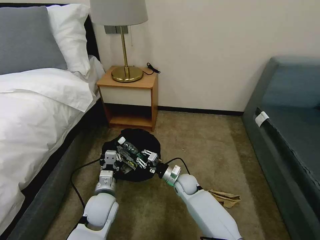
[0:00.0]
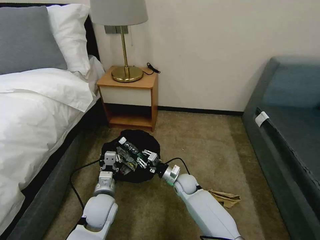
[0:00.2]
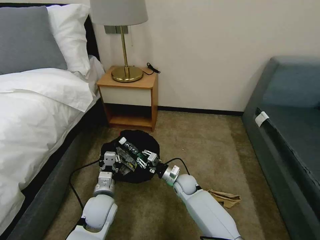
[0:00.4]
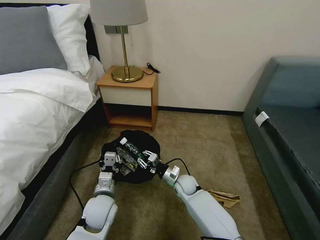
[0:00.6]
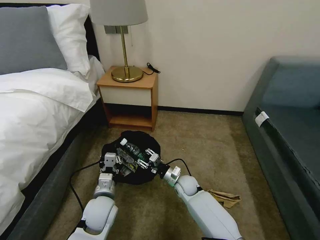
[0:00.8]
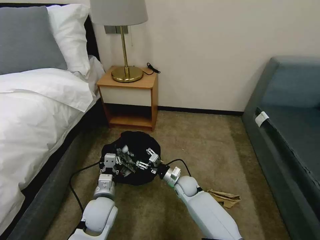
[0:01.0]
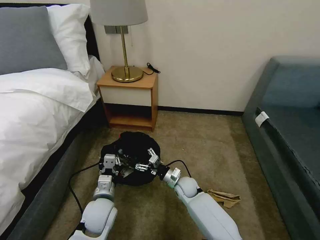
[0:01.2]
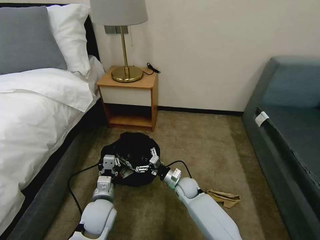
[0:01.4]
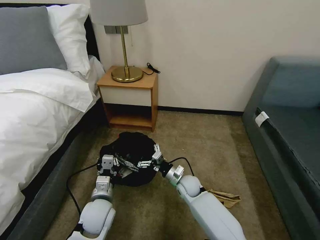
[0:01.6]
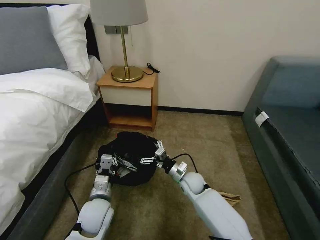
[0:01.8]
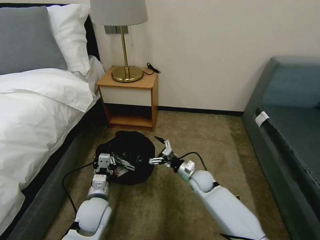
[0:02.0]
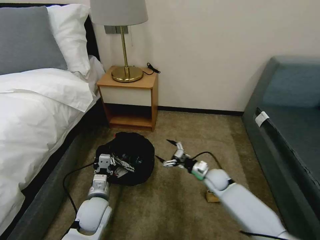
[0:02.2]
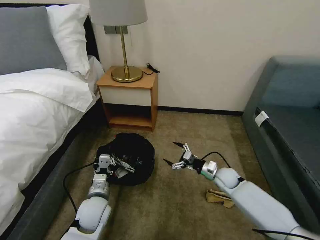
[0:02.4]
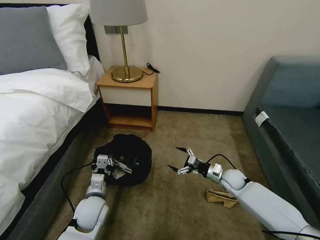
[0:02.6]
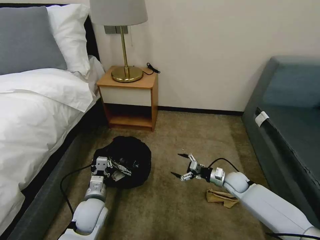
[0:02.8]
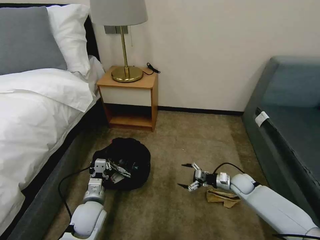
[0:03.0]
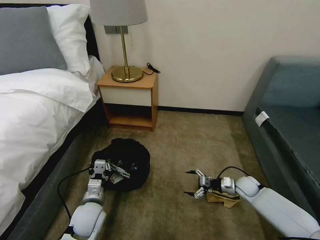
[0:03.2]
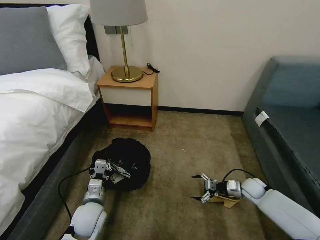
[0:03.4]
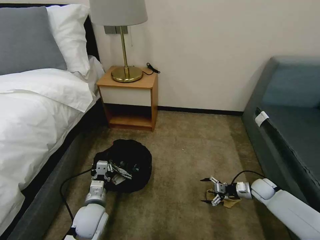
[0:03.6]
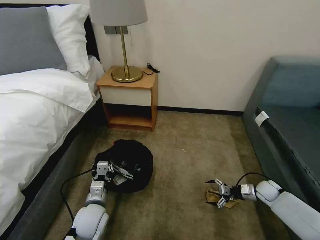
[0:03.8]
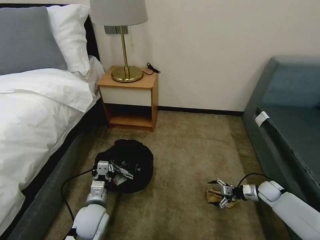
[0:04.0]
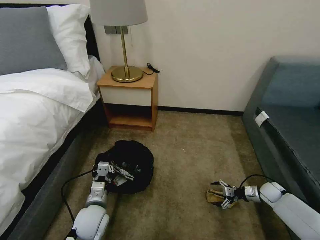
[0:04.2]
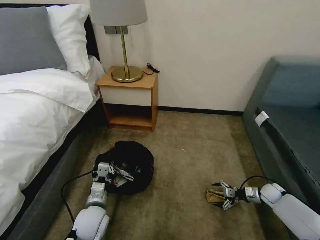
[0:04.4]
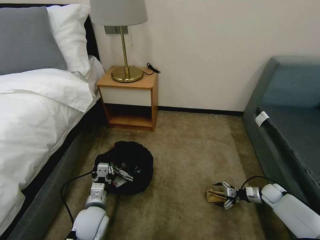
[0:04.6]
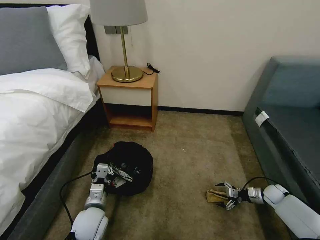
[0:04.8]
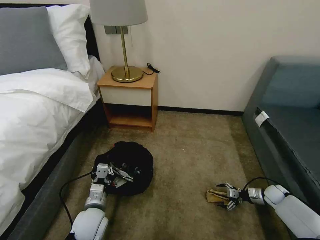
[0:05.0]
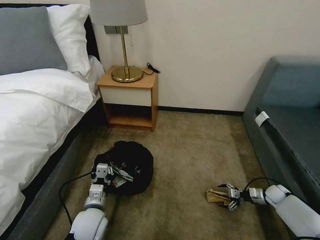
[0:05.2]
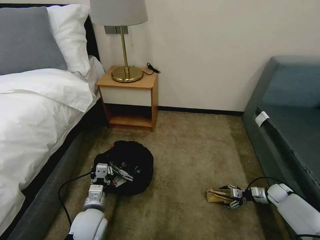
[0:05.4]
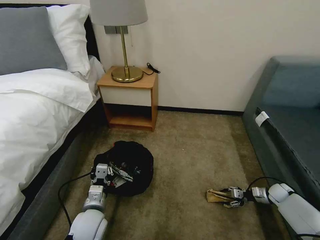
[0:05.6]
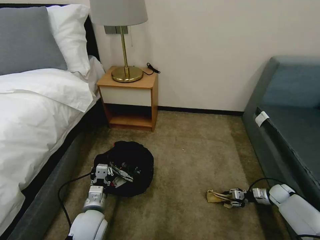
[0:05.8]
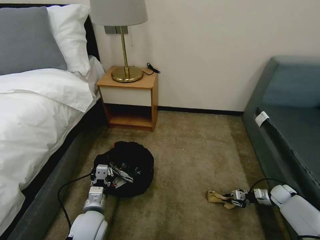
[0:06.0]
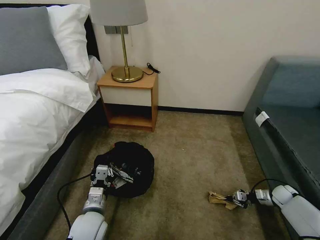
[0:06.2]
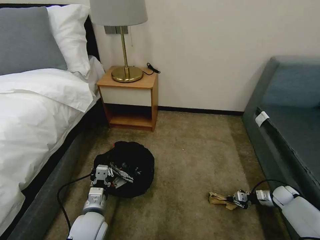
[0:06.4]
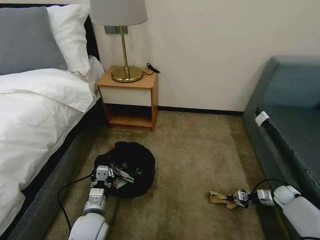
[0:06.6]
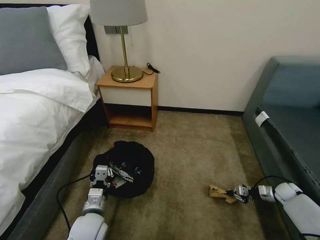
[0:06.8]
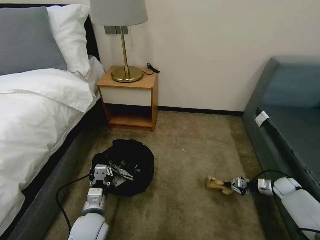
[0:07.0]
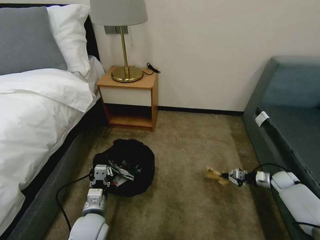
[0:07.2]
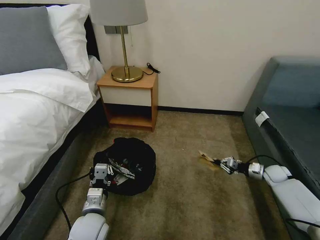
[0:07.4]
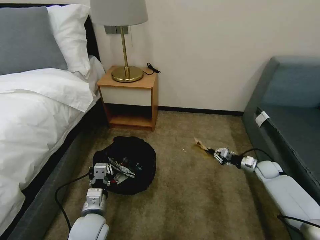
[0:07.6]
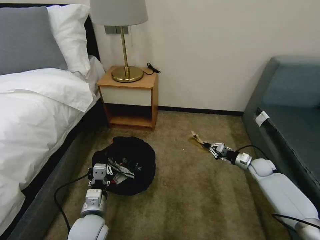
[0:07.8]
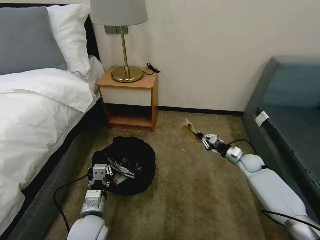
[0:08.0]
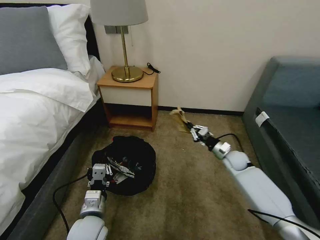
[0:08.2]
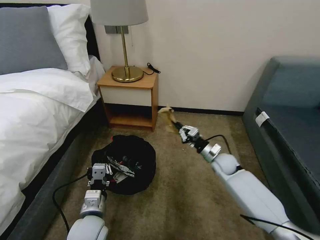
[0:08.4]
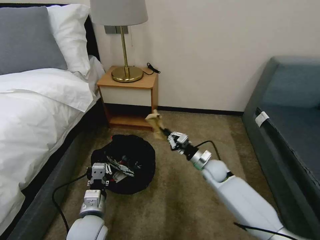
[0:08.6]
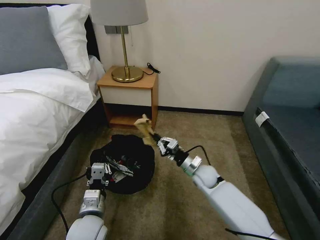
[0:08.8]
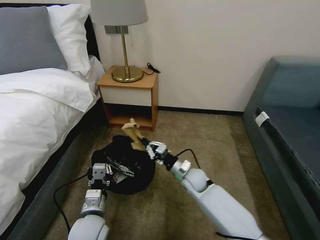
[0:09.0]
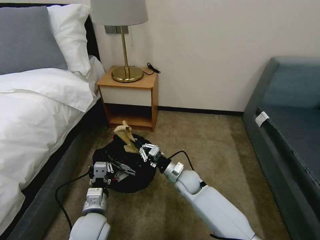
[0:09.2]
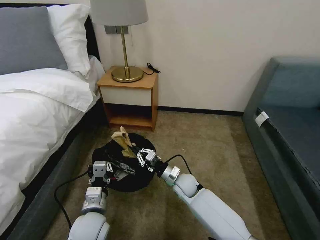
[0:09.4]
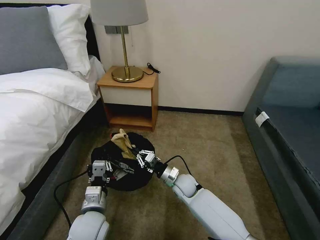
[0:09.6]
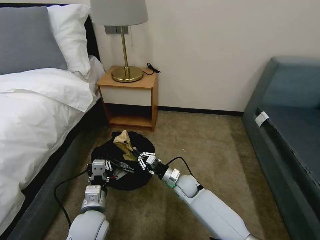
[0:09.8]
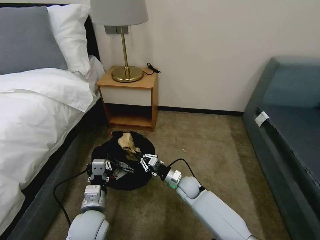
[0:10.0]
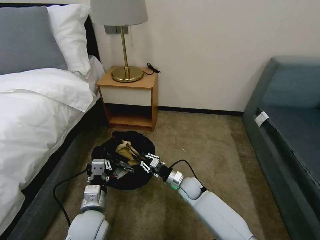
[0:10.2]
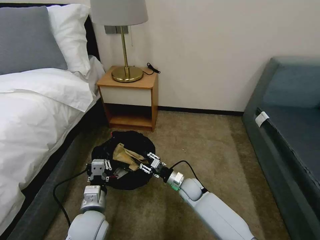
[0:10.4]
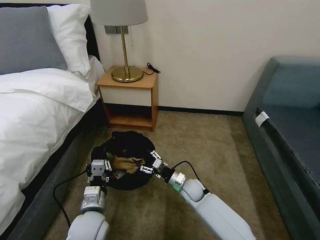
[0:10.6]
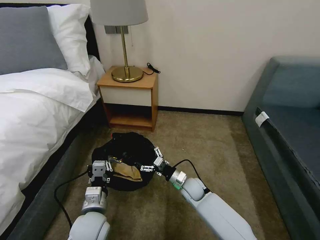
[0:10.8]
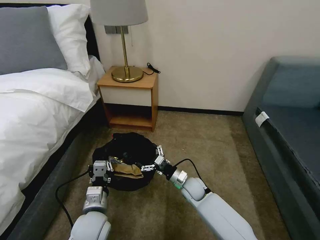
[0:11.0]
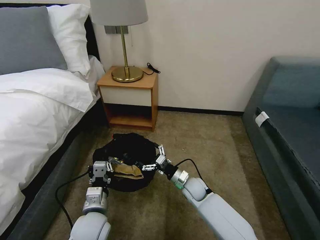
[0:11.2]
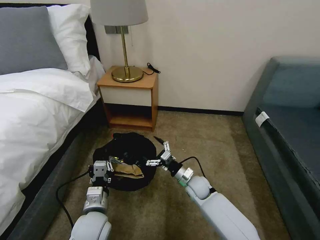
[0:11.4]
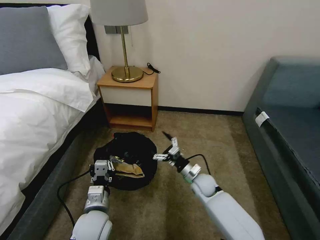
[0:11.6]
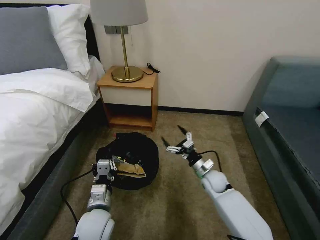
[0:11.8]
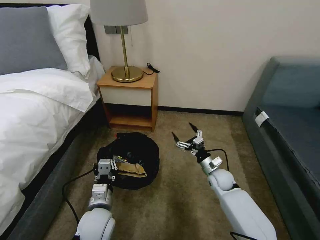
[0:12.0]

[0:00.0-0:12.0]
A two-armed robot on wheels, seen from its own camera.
Task of the whole recording: Pick up the trash bin, then pick up the garbage on the floor and place it into the trash bin.
0:00.0 to 0:01.6: The right gripper opens up.
0:01.6 to 0:03.0: The right gripper is displaced to the right by roughly 25 cm.
0:03.0 to 0:04.4: The right gripper moves to the right, some 15 cm.
0:04.4 to 0:06.0: The right gripper closes its fingers.
0:06.0 to 0:07.6: The right gripper is displaced forward, upward and to the left by some 15 cm.
0:07.6 to 0:09.0: The right gripper heads to the left, covering approximately 35 cm.
0:09.0 to 0:10.4: The right gripper heads downward, covering approximately 5 cm, and opens.
0:10.4 to 0:12.0: The right gripper moves to the right, approximately 10 cm, and opens up.

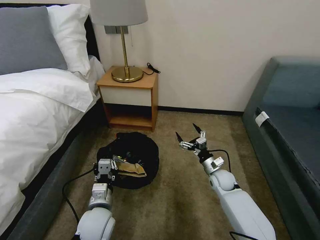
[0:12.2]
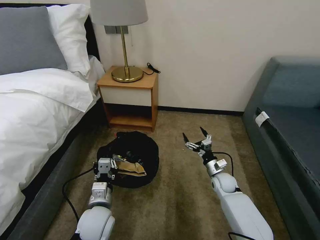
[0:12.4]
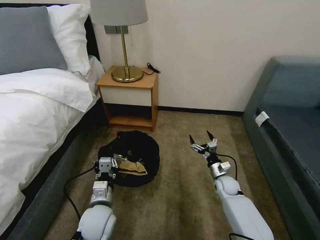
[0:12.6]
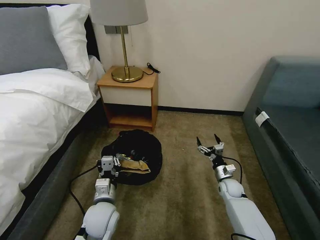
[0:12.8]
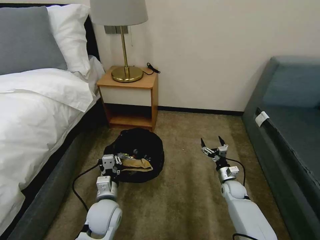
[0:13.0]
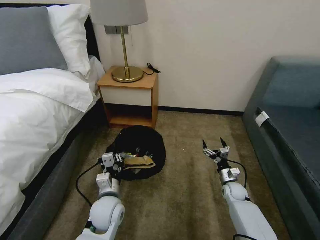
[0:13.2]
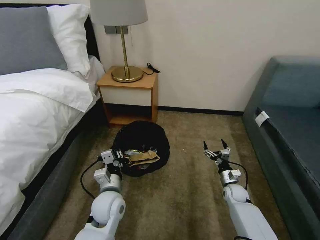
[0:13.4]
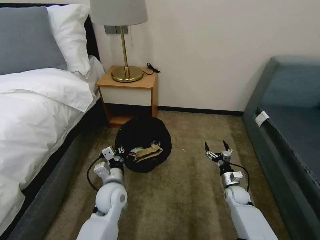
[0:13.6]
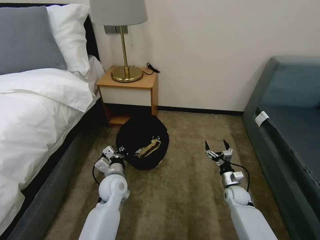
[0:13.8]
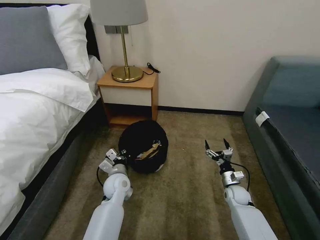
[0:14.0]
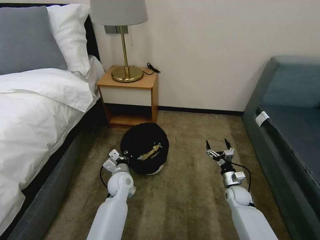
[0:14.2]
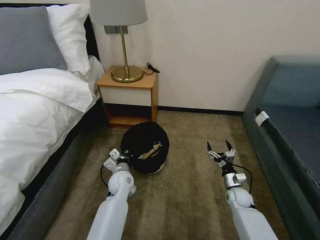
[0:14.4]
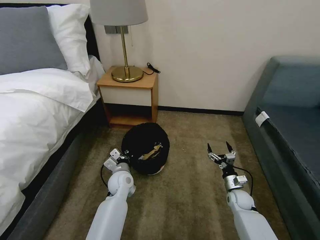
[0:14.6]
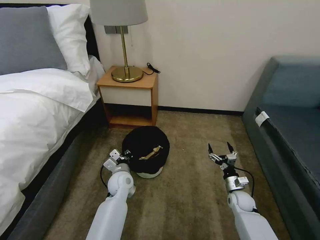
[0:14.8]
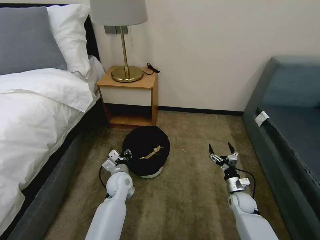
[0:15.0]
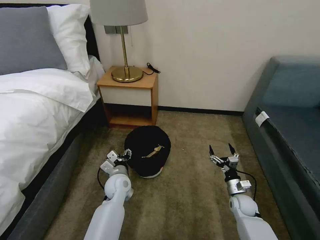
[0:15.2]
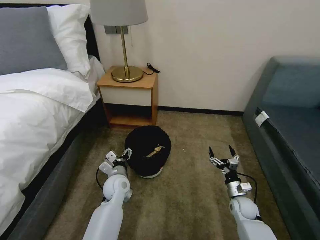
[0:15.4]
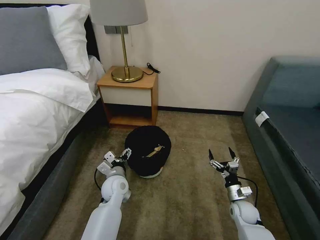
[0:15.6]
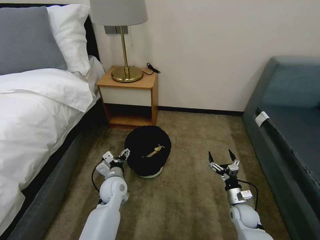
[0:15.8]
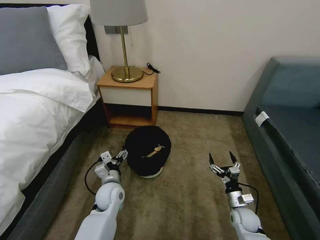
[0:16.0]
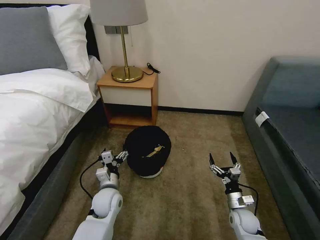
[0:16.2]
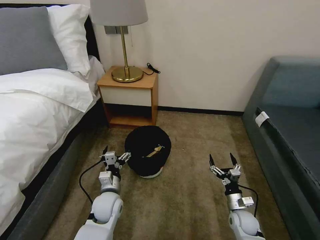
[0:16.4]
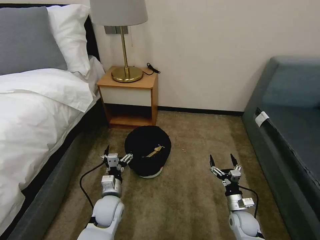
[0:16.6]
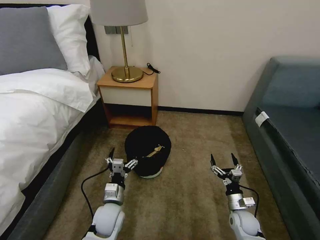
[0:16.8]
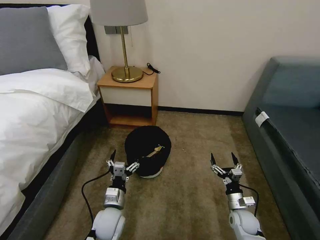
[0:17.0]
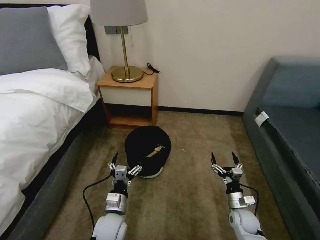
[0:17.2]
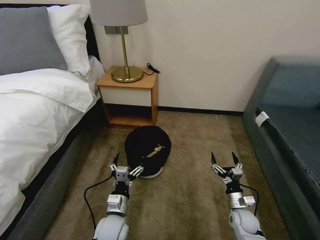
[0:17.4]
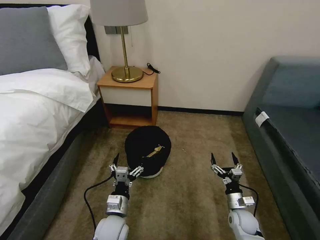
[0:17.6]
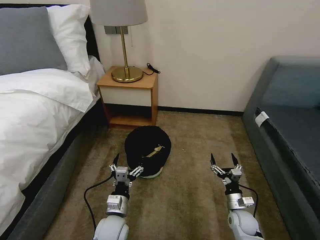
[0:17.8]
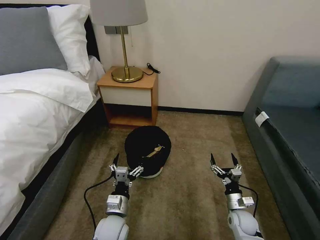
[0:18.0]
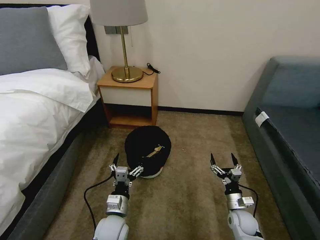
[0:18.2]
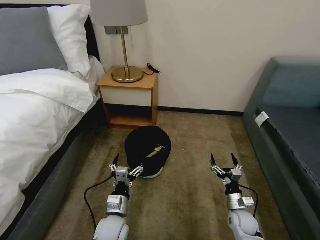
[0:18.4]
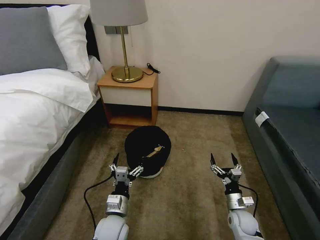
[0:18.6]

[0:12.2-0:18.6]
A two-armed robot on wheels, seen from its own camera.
Task of the whole recording: Pick up the trash bin, then pick up the garbage on the floor and place it into the trash bin.
0:12.2 to 0:13.8: The right gripper travels to the right and downward by approximately 10 cm; the left gripper moves forward, some 10 cm.
0:13.8 to 0:15.4: The left gripper opens up. Meanwhile the right gripper goes roughly 5 cm backward.
0:15.4 to 0:17.0: The left gripper shifts some 10 cm backward. Meanwhile the right gripper moves approximately 5 cm.
0:17.0 to 0:18.6: The grippers make only small movements.

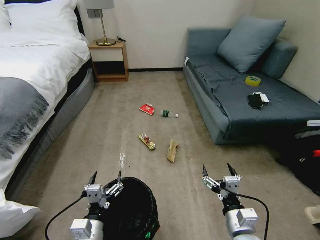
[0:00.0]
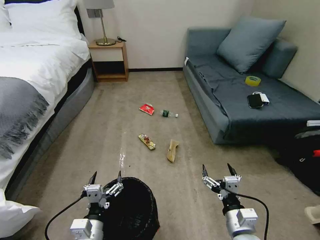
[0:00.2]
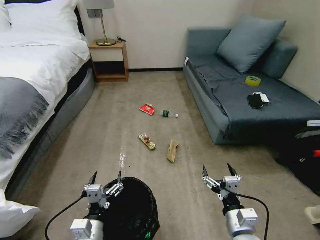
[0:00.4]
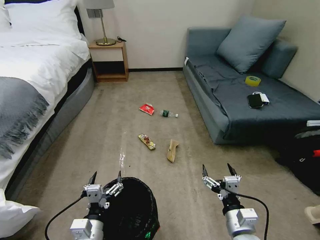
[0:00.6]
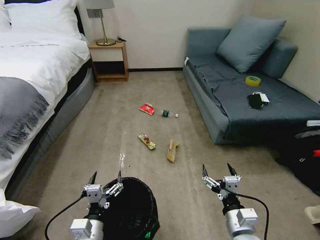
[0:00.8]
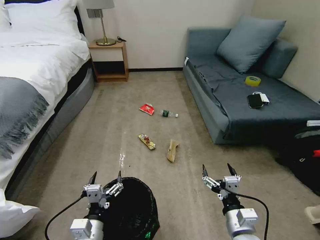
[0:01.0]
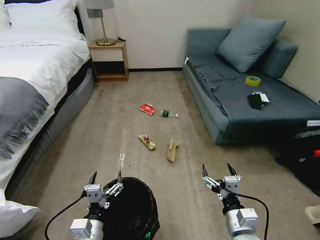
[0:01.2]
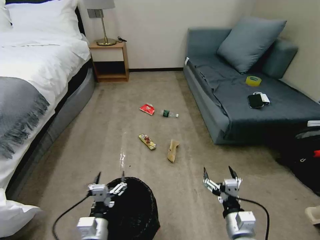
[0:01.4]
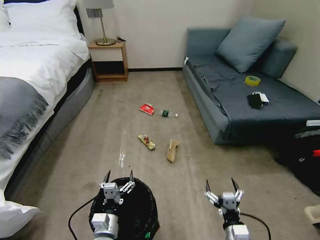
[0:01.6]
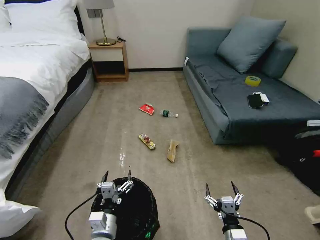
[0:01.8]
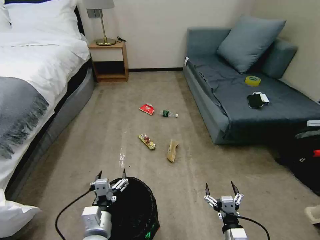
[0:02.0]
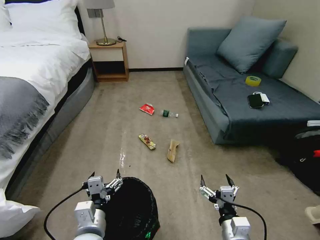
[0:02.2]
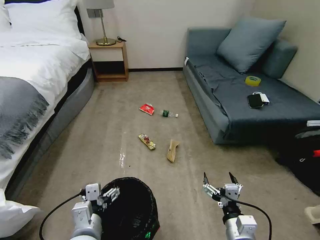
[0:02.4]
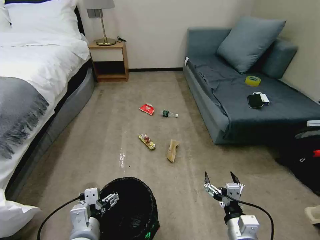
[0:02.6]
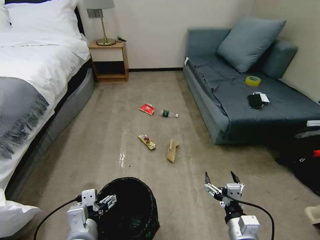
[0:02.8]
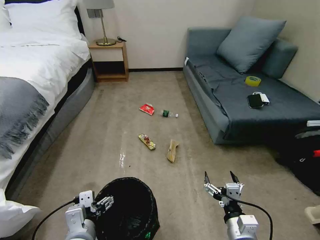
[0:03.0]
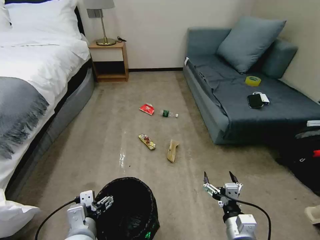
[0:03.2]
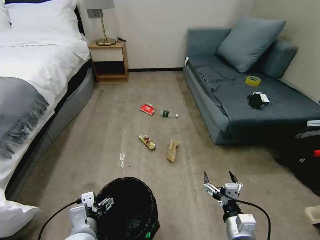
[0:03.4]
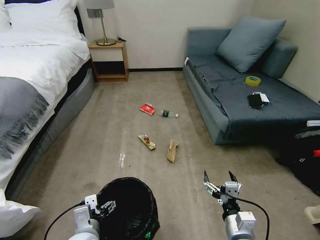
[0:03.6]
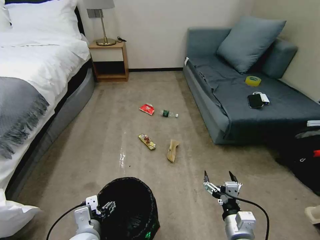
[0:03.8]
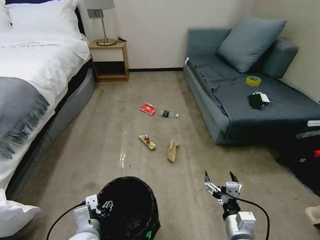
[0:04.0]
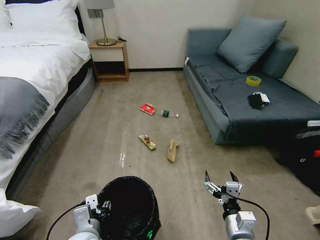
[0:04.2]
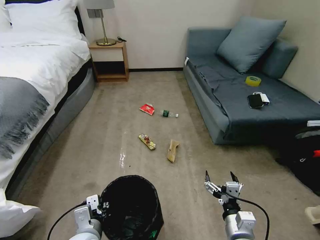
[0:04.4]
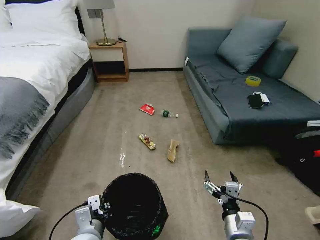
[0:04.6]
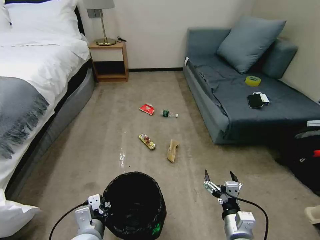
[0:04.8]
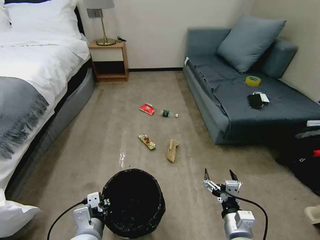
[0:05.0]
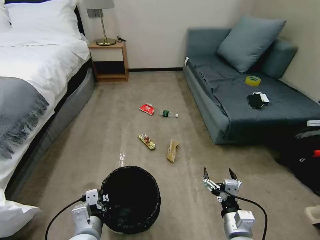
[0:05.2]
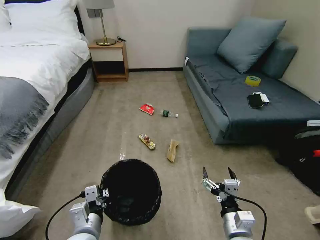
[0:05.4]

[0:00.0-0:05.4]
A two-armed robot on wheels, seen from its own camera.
Task of the whole recording: Pick up the trash bin, then pick up the garbage on the floor and place it into the trash bin.
0:01.4 to 0:02.8: The left gripper is displaced upward by some 5 cm.
0:02.8 to 0:04.0: The left gripper moves downward, about 5 cm, and closes.
0:04.0 to 0:05.4: The left gripper closes.
